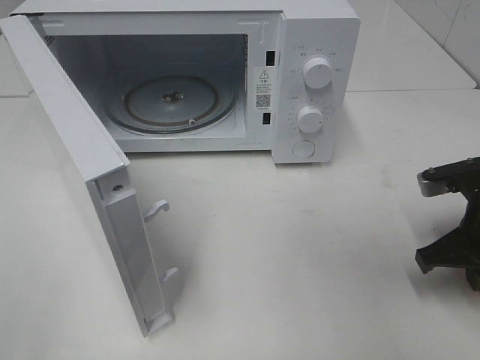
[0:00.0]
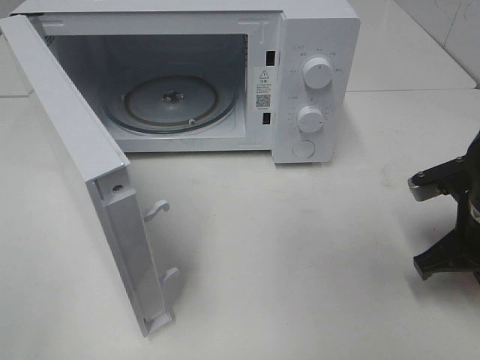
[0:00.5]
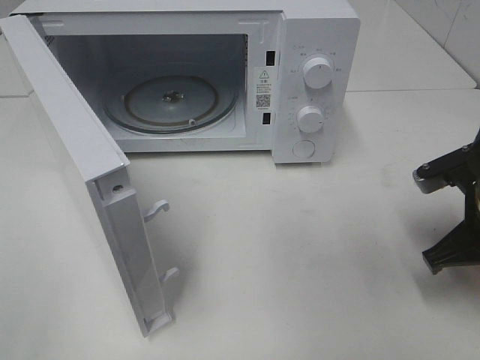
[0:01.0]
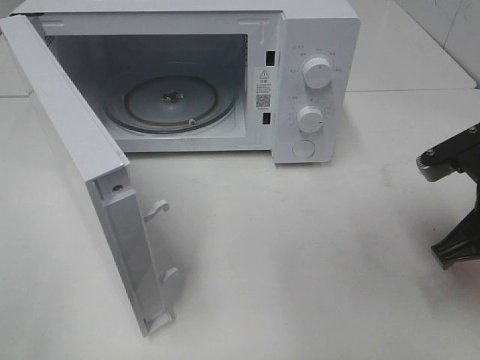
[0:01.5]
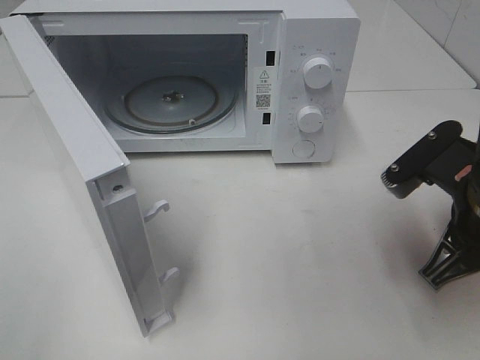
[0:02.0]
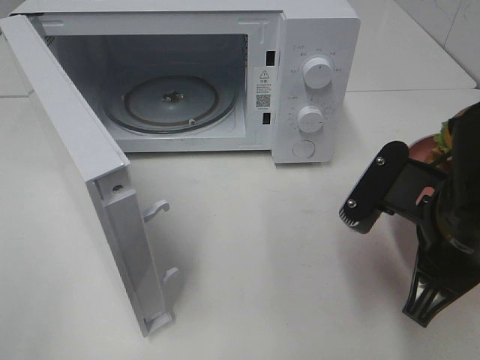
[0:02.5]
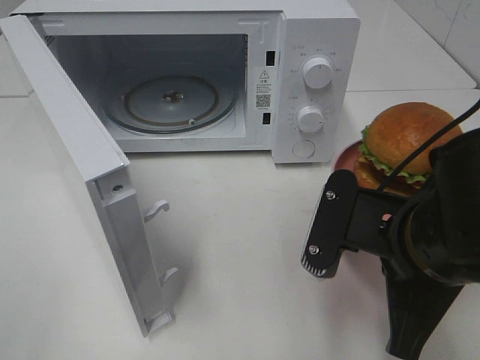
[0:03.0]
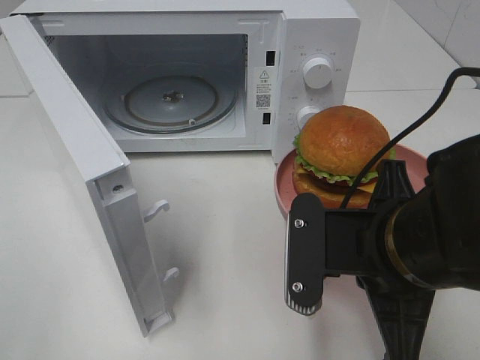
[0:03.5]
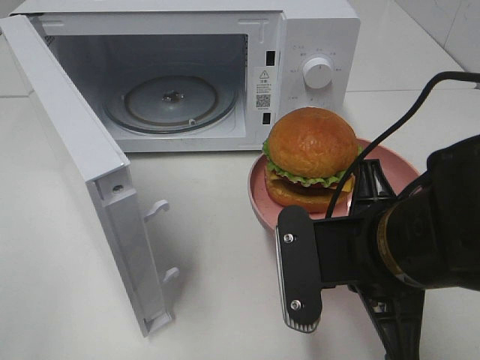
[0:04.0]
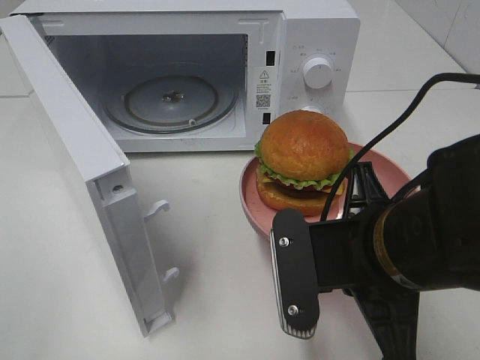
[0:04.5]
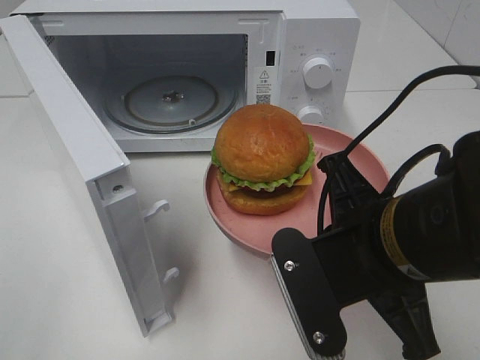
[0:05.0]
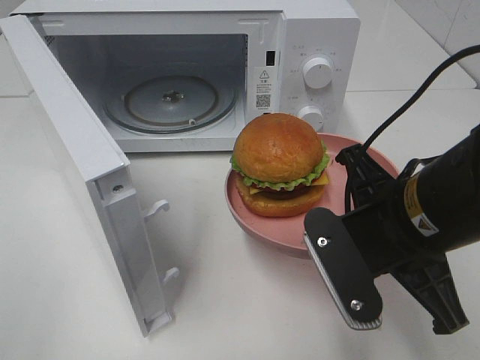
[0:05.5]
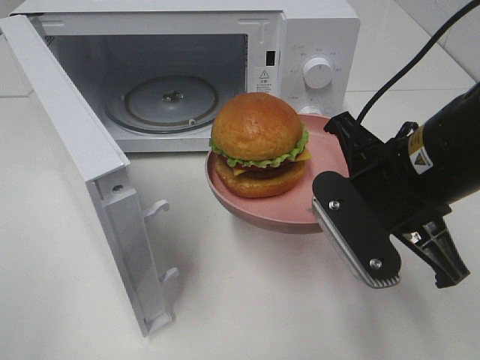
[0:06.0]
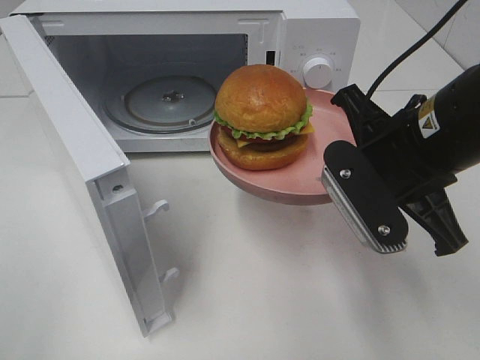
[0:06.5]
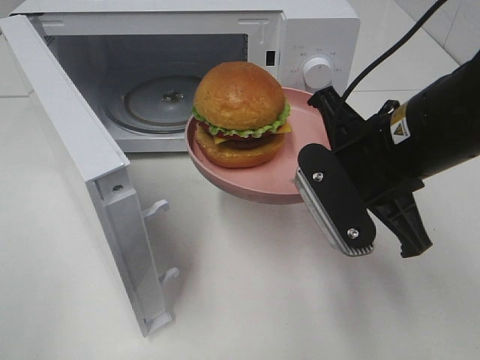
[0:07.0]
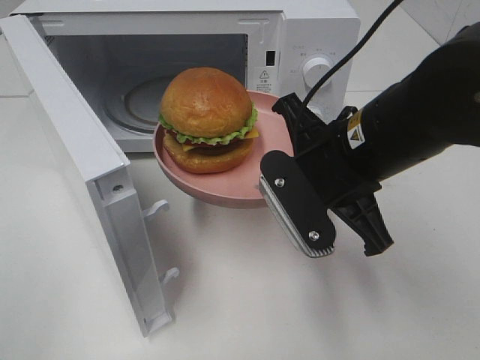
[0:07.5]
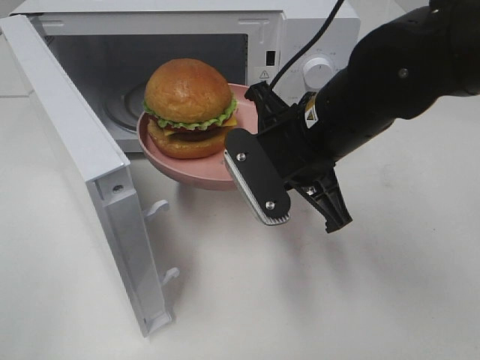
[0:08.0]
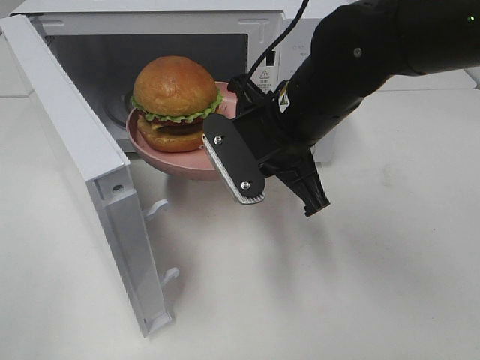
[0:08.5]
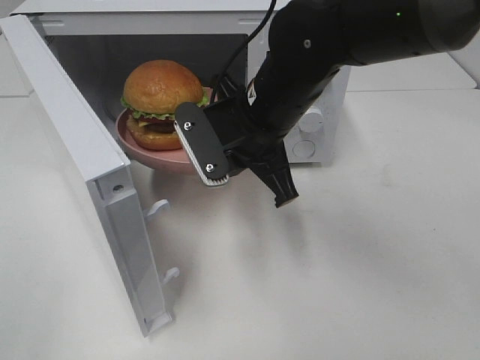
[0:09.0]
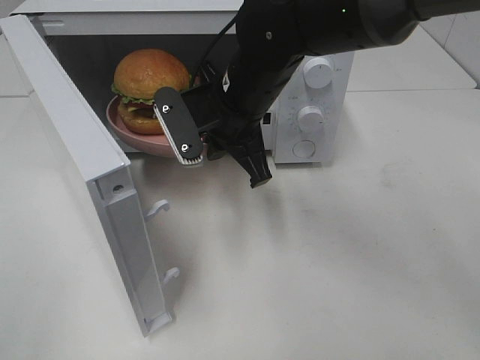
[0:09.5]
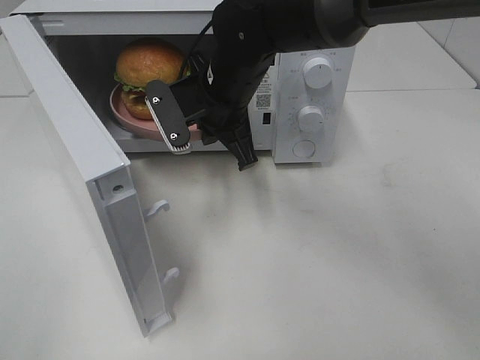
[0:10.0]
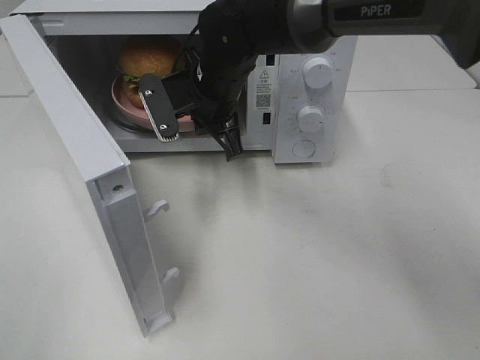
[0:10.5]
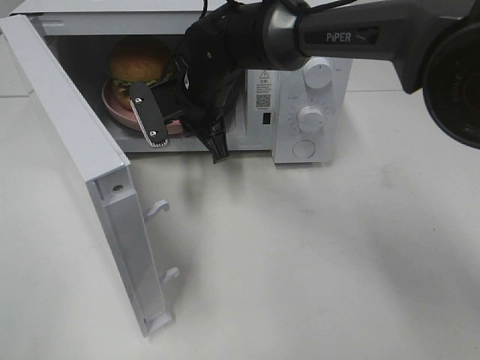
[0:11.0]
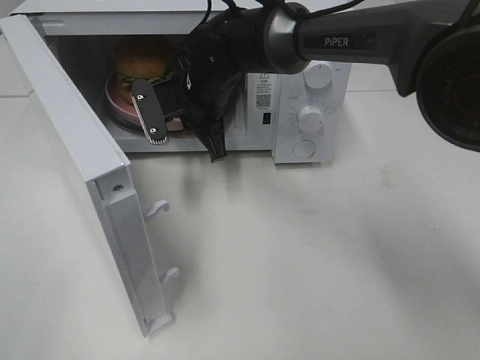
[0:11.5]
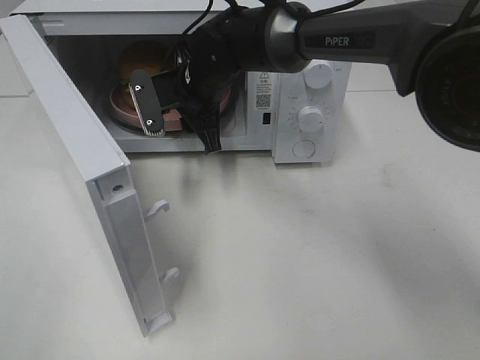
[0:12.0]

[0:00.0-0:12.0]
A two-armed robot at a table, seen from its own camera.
Task of the whole recording: Heat the burger.
0:00.0 to 0:02.0: The right gripper is displaced to the left and upward by some 10 cm.
0:02.0 to 0:04.0: The right gripper moves to the left, roughly 10 cm.
0:04.0 to 0:06.0: The right gripper heads forward, covering some 5 cm.
0:06.0 to 0:08.0: The right gripper heads to the left and forward, covering some 10 cm.
0:08.0 to 0:10.0: The right gripper is displaced forward and to the left by some 15 cm.
0:10.0 to 0:12.0: The right gripper moves forward, roughly 5 cm, and opens its fingers.

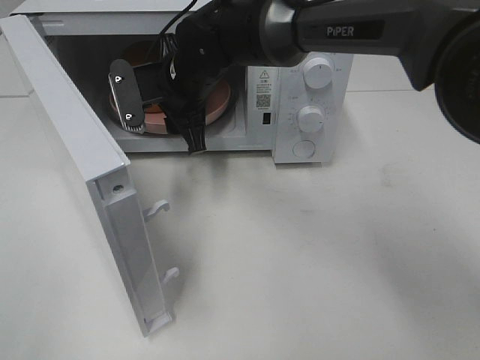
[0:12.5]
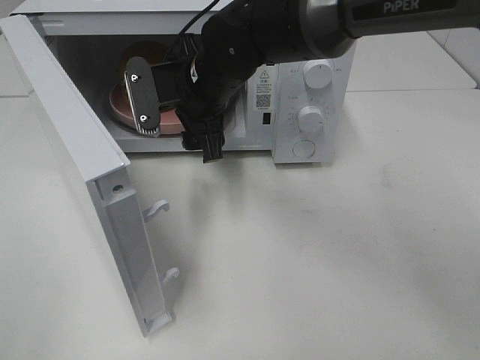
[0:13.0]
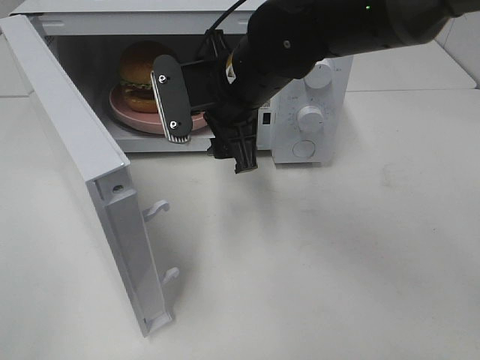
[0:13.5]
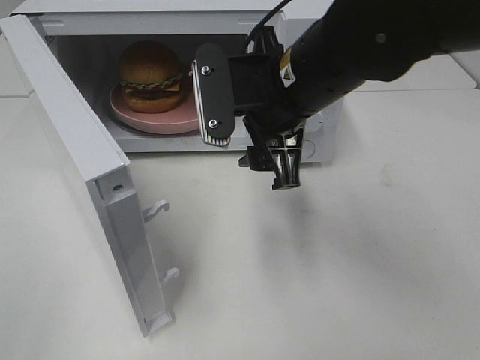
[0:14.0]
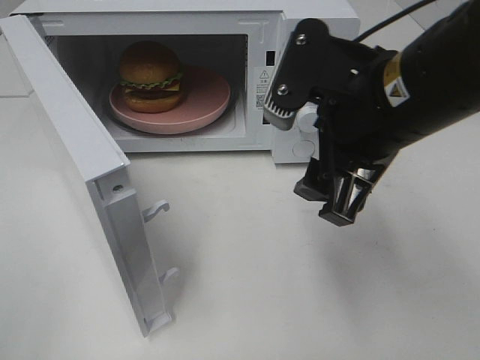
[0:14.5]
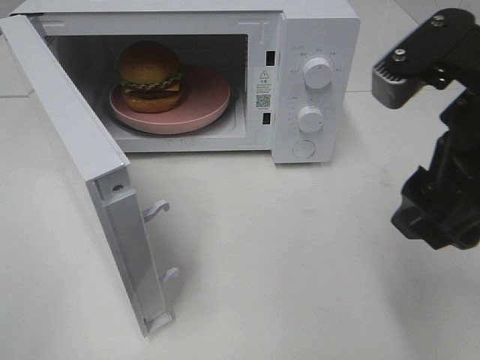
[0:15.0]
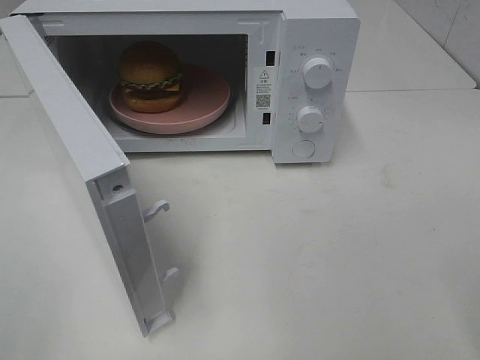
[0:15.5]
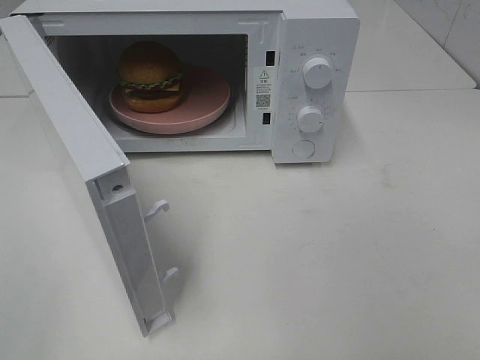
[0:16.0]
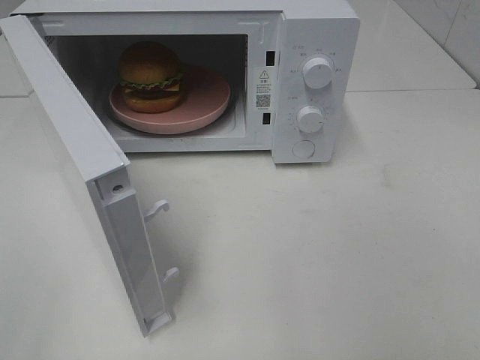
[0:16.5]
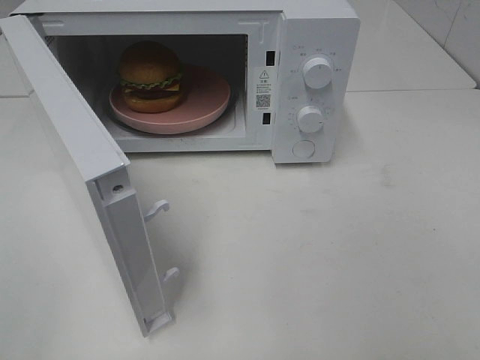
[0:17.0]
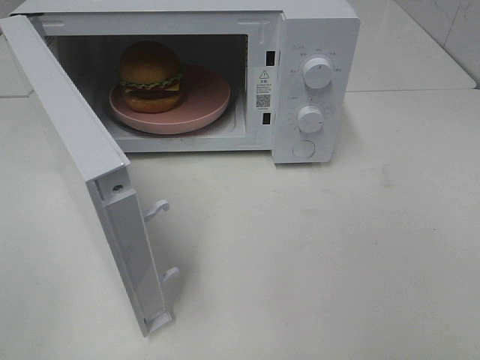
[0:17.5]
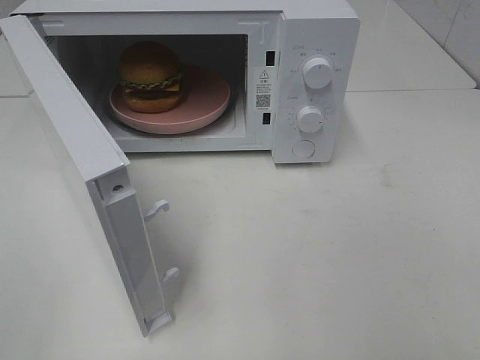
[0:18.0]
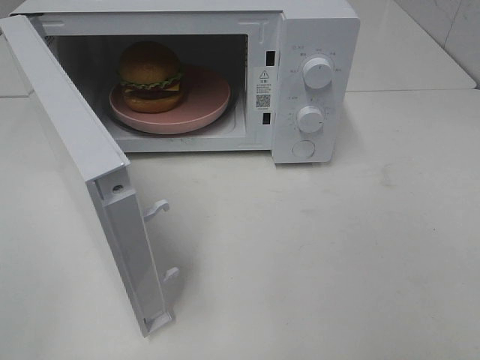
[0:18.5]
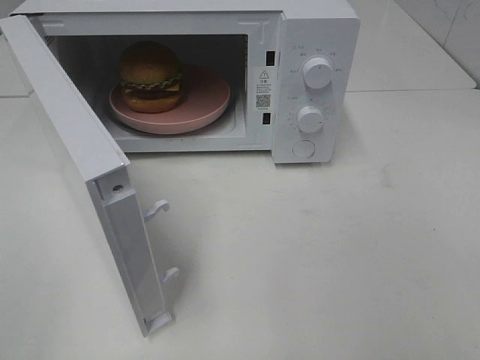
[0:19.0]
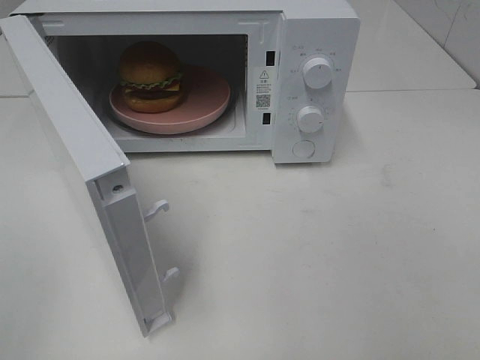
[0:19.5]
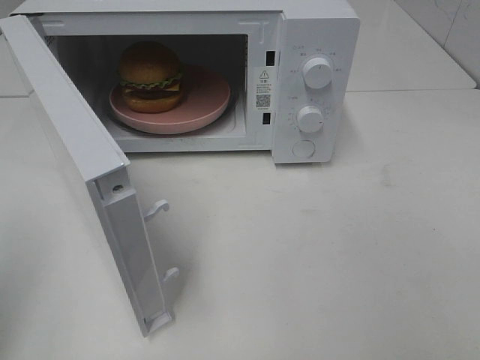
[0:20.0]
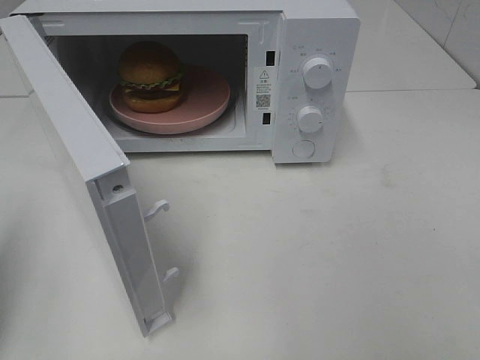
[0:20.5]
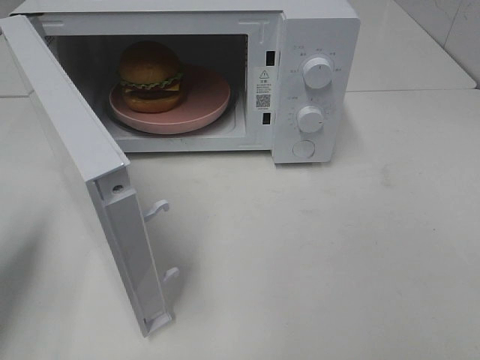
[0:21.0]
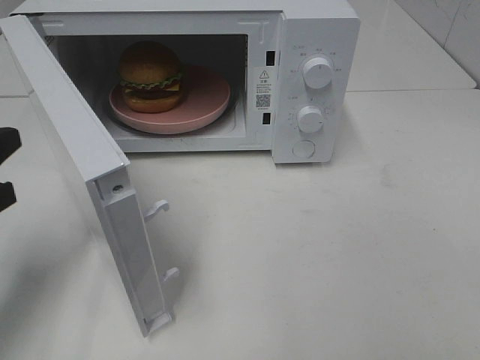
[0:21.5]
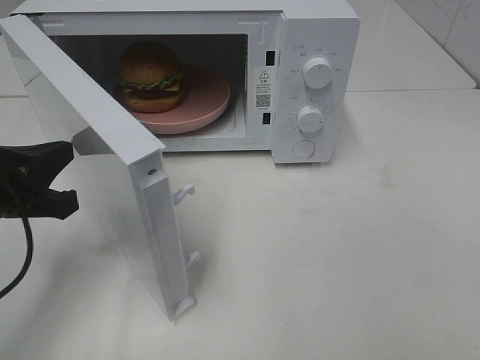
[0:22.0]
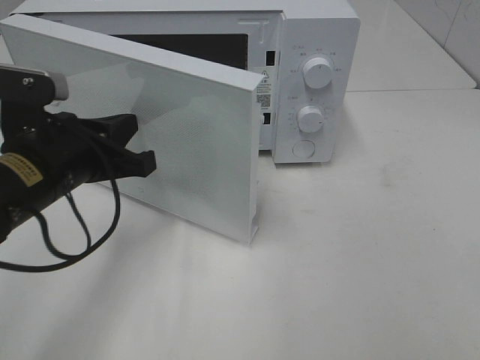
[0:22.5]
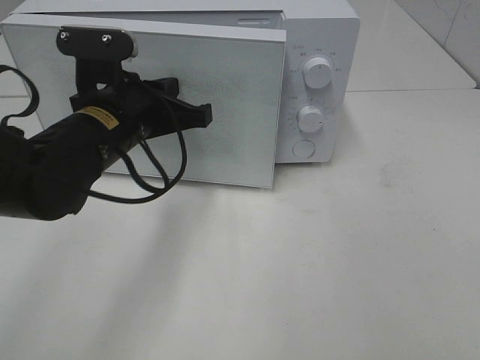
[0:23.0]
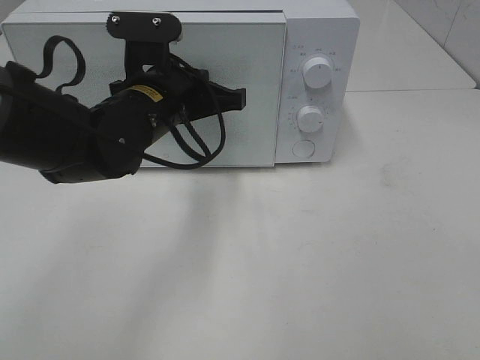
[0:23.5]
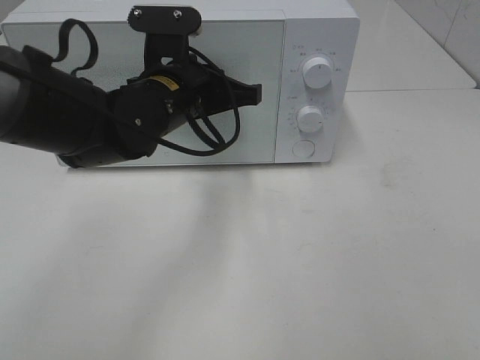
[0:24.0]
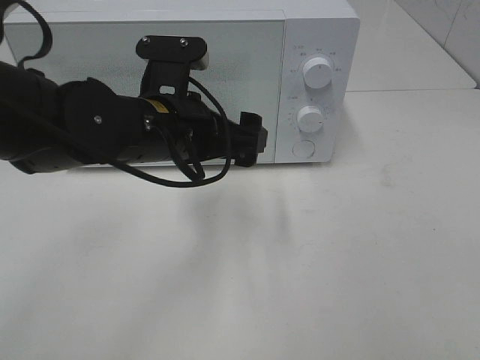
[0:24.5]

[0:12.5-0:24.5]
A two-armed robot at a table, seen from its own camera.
Task of the whole recording: Heat the burger.
Step, 0:12.5 to 0:24.5: Left hand: close the microwave door.
0:12.5 to 0:14.5: The right gripper is displaced backward, to the right and upward by approximately 25 cm.
0:14.5 to 0:16.5: The right gripper shifts some 25 cm backward and to the right.
0:18.5 to 0:20.5: The left gripper is displaced forward by some 15 cm, and closes up.
0:20.5 to 0:22.5: The left gripper moves to the right, forward and downward, some 20 cm.
0:22.5 to 0:24.5: The left gripper shifts some 10 cm to the right, and opens.

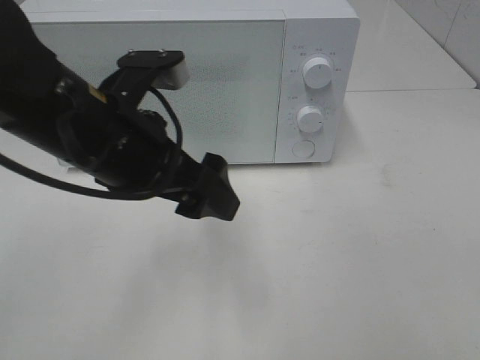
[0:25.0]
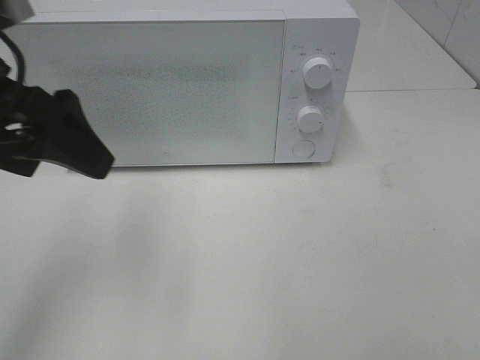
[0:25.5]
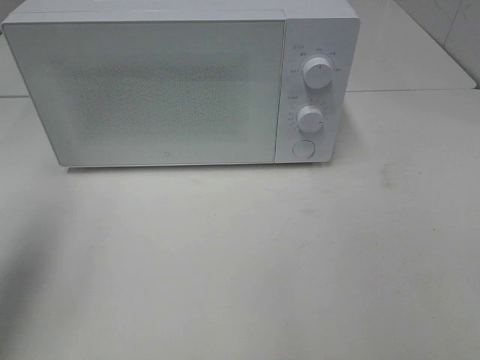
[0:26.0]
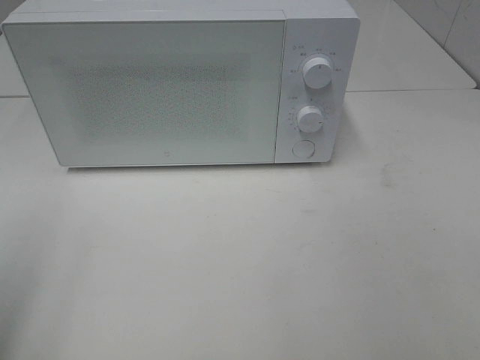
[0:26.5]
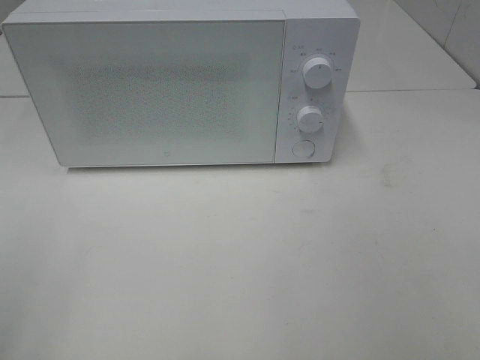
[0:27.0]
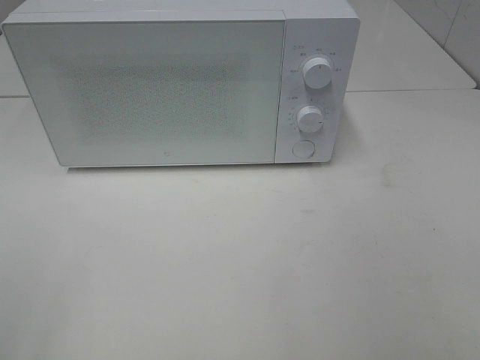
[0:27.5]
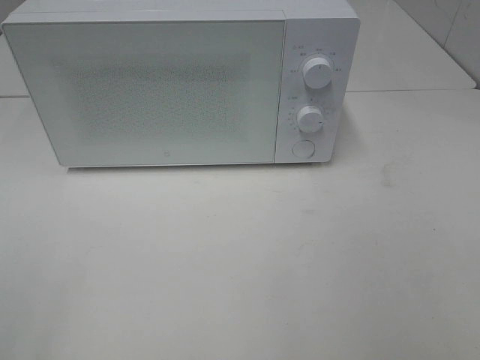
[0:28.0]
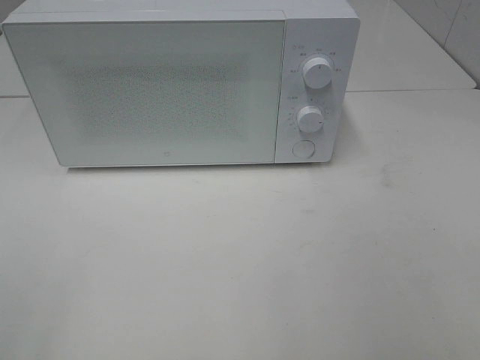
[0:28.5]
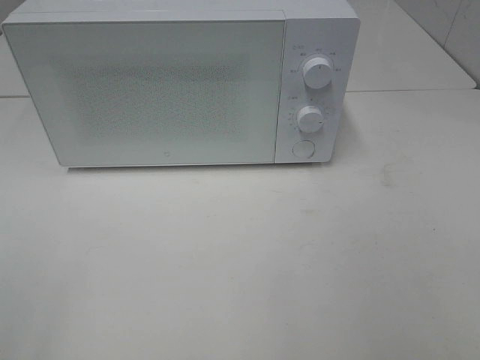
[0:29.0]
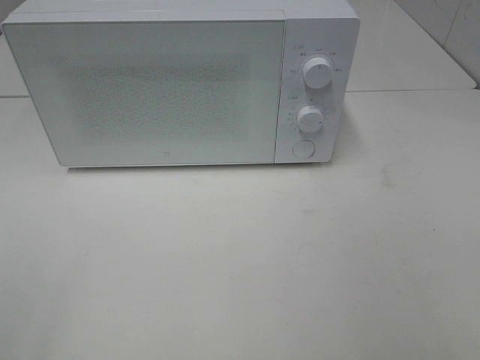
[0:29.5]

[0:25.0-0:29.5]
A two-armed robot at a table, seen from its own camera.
Task of the whole recording: Heat the burger.
0:25.0 to 0:27.0: The left gripper shifts roughly 30 cm to the left and backward.
